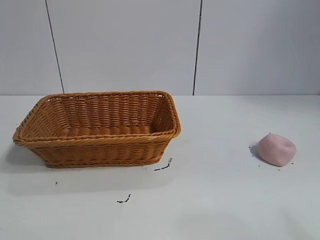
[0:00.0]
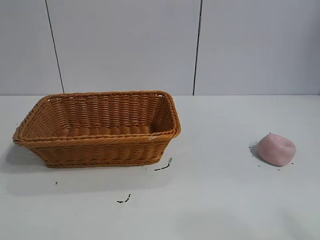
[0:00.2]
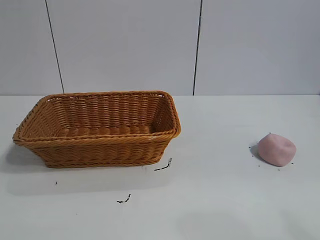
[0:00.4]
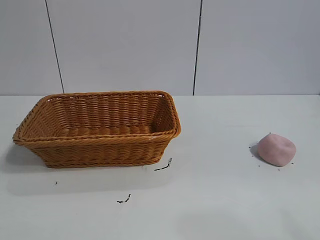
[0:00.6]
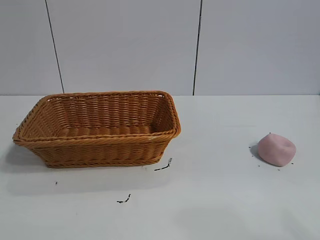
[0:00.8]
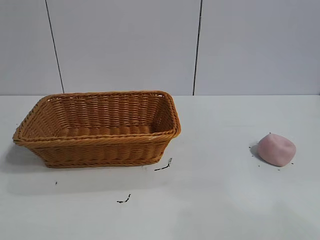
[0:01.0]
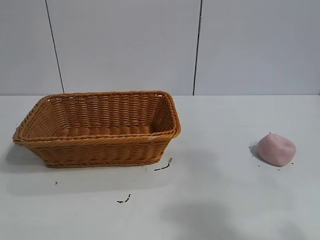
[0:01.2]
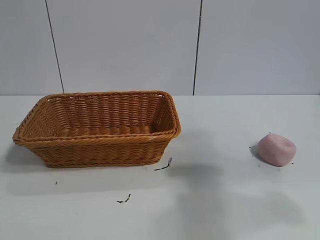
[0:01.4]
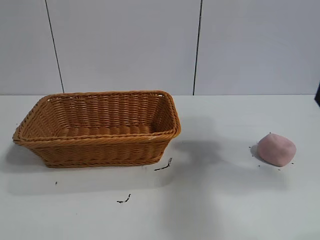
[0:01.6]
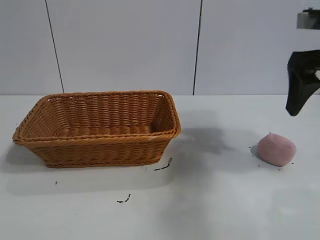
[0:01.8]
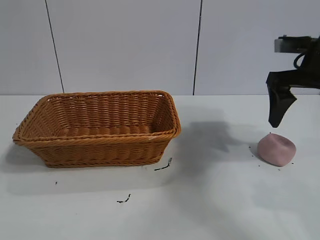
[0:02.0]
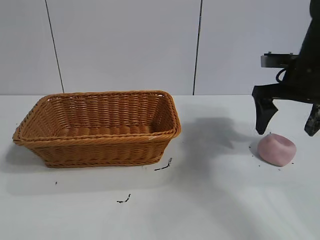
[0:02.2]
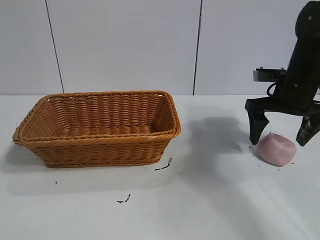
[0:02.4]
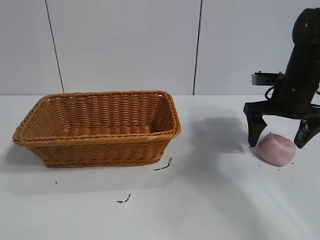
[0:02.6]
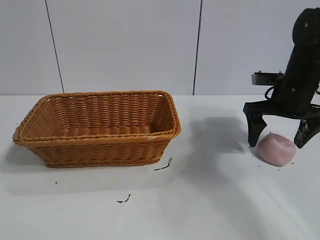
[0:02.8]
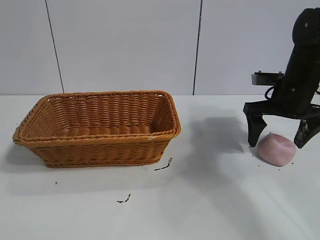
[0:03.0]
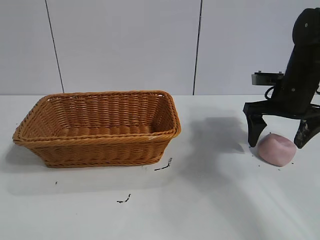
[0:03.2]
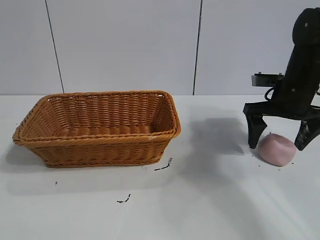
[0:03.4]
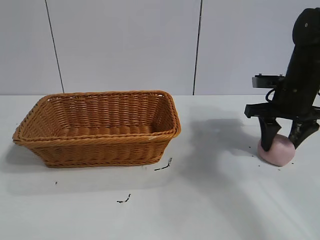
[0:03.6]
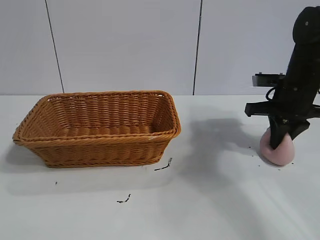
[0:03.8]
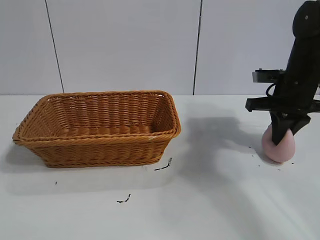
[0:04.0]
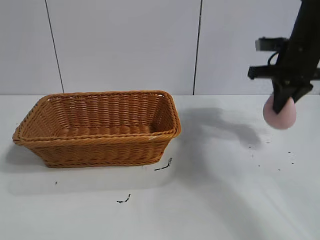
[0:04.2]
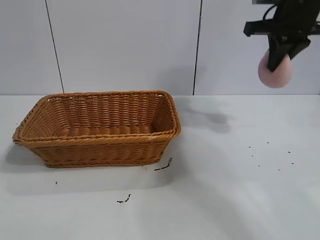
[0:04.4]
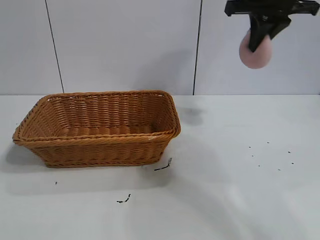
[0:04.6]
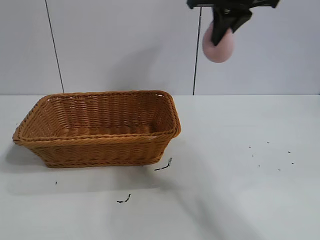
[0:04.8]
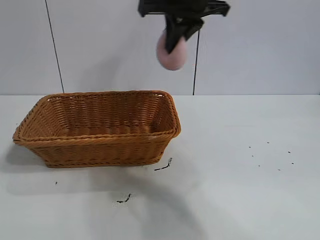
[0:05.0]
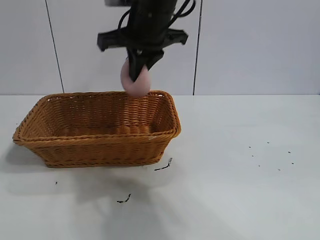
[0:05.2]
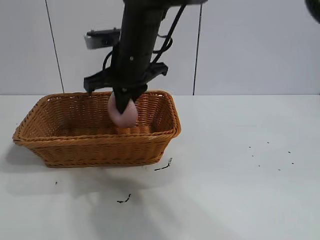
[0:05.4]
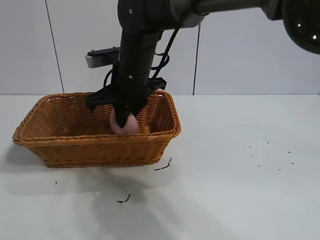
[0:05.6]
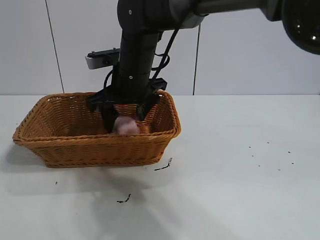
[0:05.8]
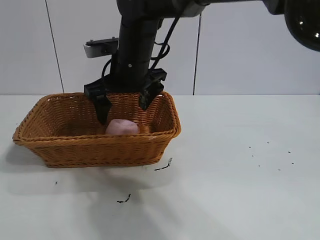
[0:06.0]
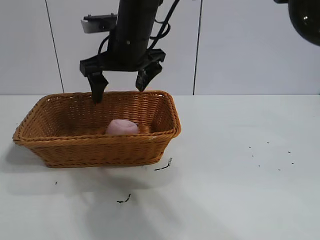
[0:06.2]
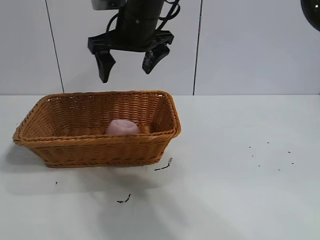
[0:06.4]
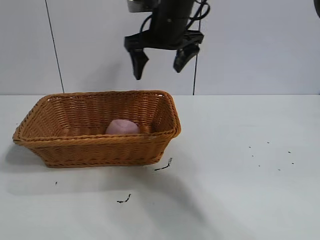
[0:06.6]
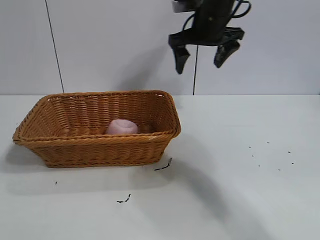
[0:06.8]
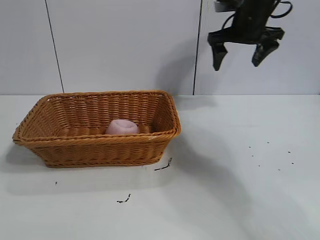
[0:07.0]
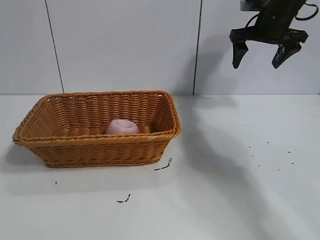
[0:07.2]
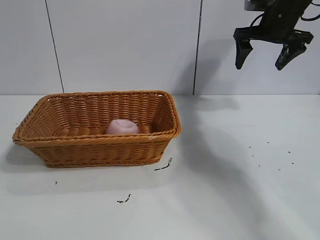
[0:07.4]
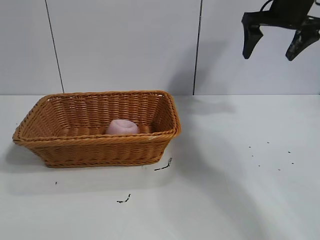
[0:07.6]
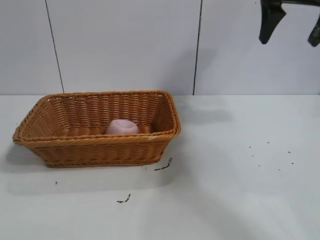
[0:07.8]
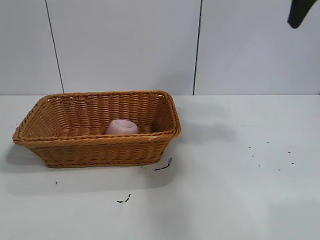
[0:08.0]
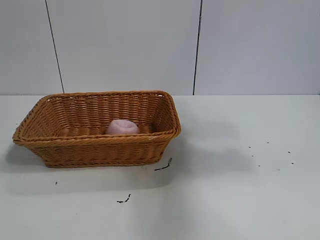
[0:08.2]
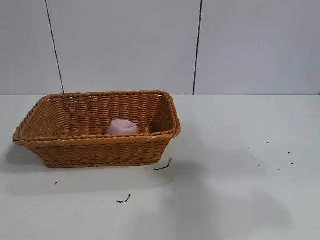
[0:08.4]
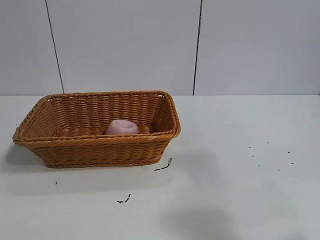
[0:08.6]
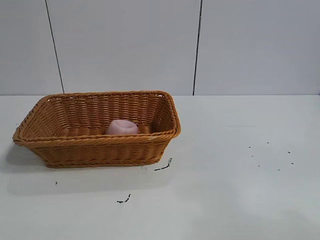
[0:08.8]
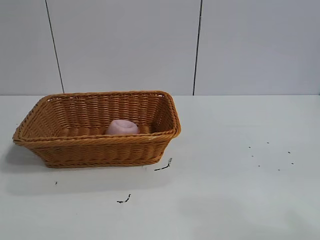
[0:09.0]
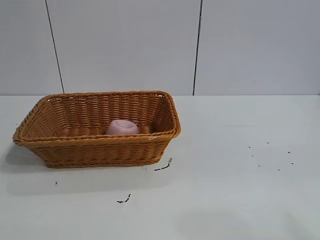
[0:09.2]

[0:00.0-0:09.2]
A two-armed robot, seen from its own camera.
Task of the whole recording: pick up the peach and put it into the basket.
Step, 0:00.8 to 0:03.8: Grasp the peach with right gripper.
Step, 0:04.0 to 0:05.8: Place the peach in the basket with right gripper.

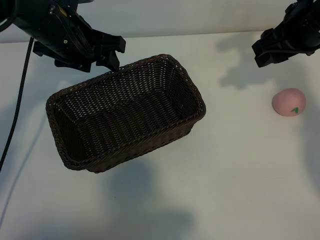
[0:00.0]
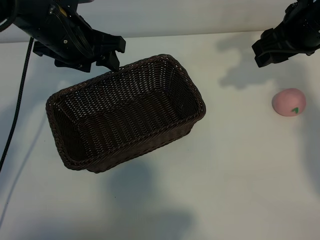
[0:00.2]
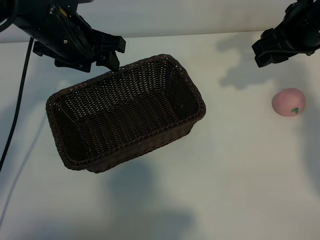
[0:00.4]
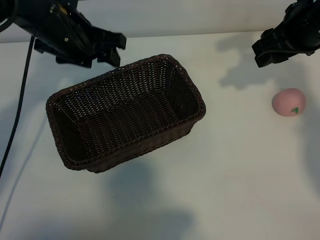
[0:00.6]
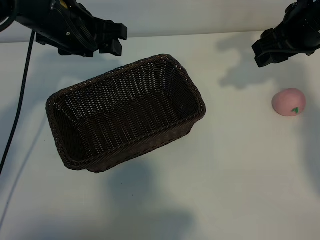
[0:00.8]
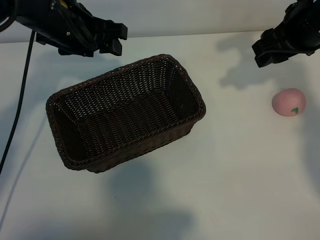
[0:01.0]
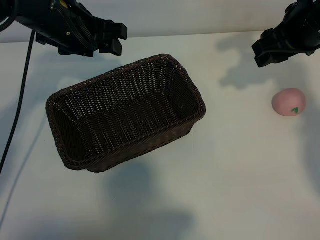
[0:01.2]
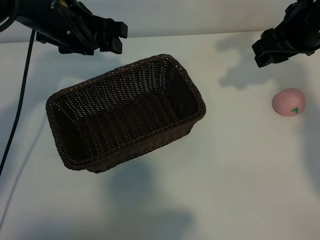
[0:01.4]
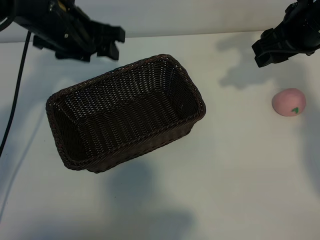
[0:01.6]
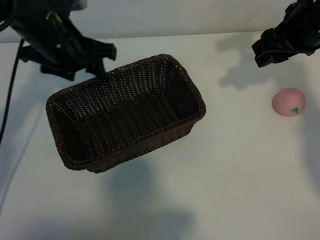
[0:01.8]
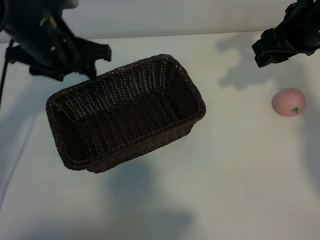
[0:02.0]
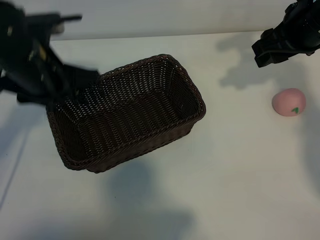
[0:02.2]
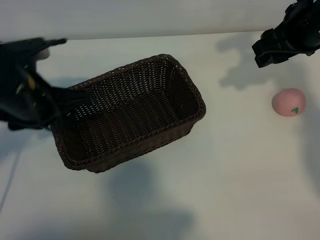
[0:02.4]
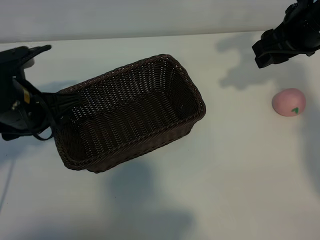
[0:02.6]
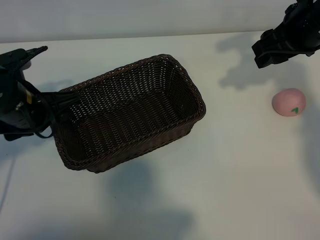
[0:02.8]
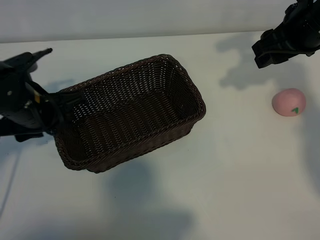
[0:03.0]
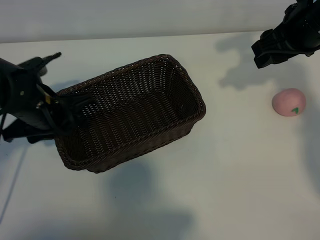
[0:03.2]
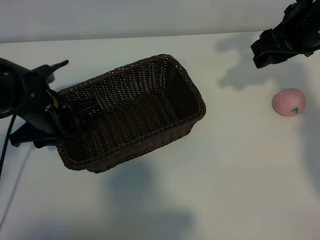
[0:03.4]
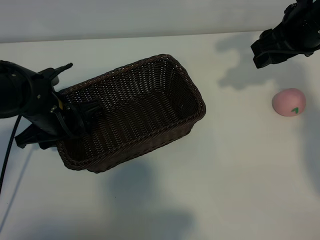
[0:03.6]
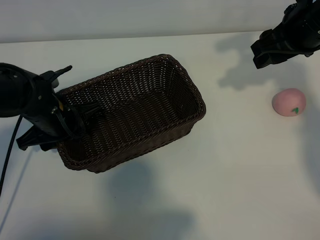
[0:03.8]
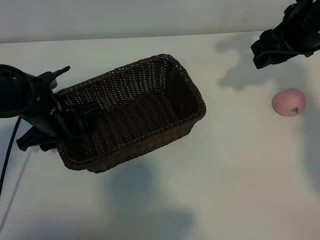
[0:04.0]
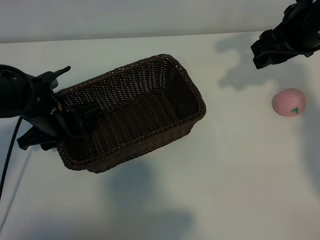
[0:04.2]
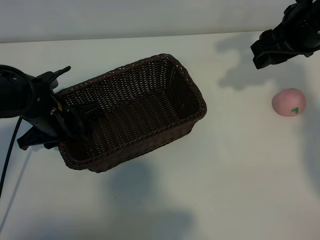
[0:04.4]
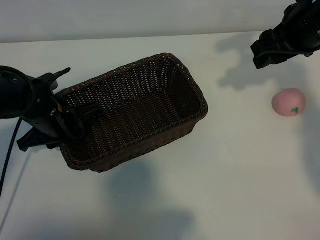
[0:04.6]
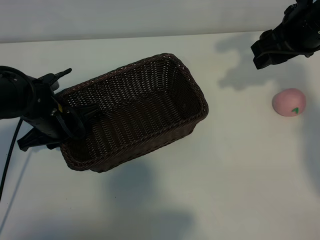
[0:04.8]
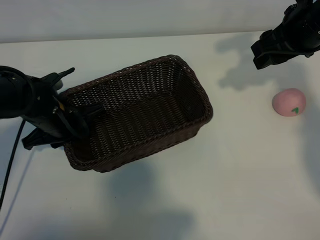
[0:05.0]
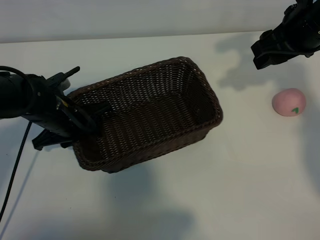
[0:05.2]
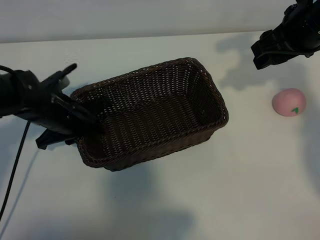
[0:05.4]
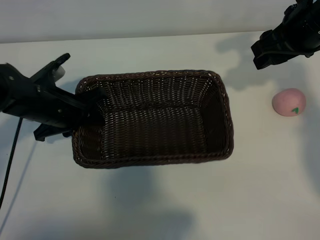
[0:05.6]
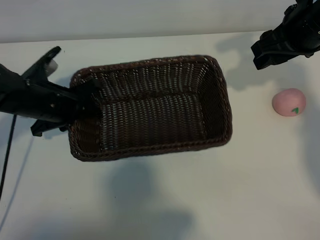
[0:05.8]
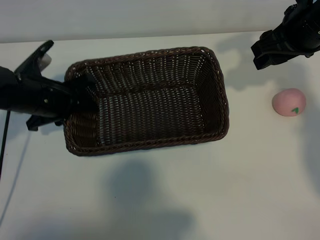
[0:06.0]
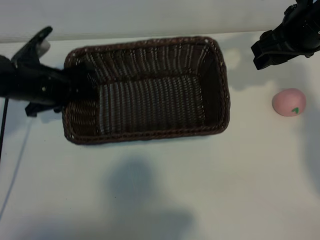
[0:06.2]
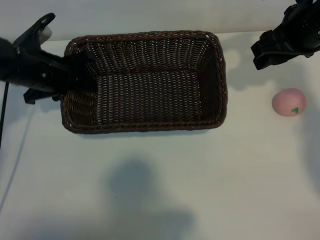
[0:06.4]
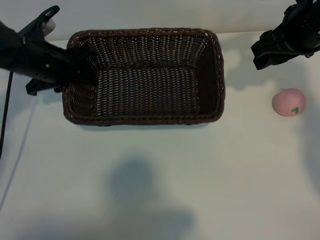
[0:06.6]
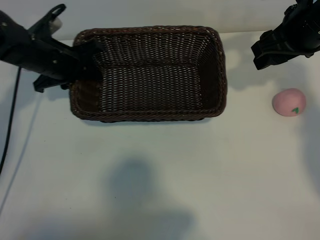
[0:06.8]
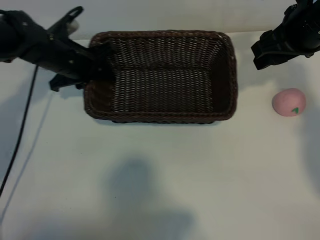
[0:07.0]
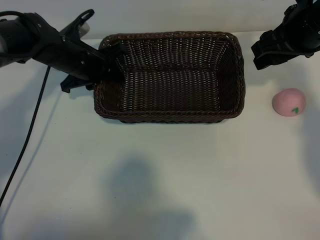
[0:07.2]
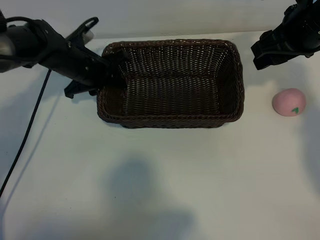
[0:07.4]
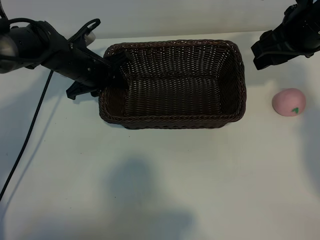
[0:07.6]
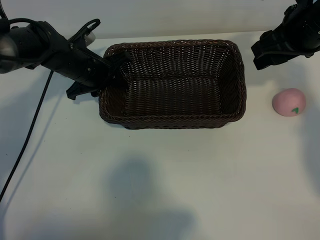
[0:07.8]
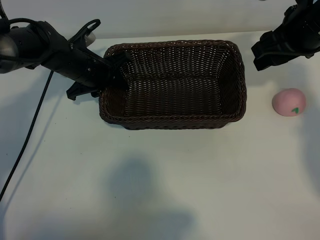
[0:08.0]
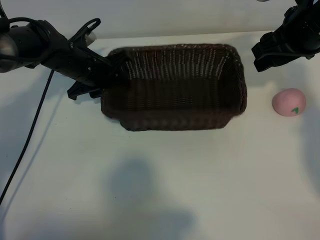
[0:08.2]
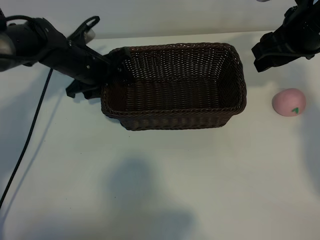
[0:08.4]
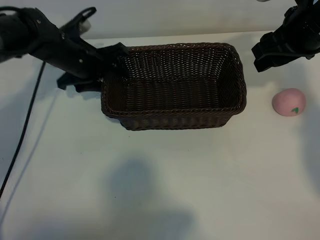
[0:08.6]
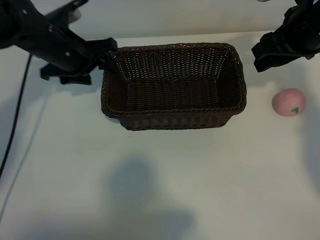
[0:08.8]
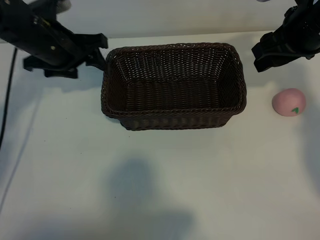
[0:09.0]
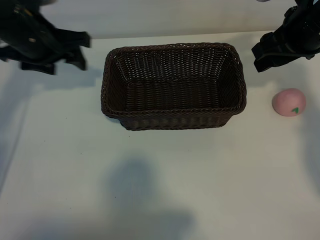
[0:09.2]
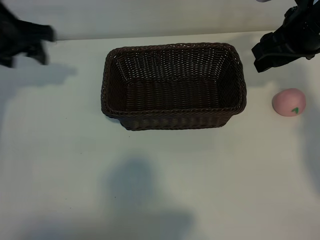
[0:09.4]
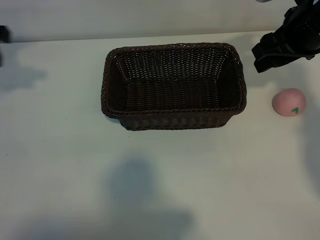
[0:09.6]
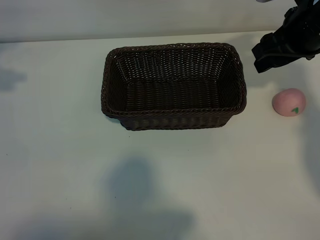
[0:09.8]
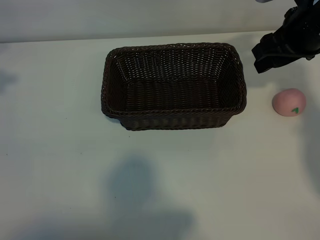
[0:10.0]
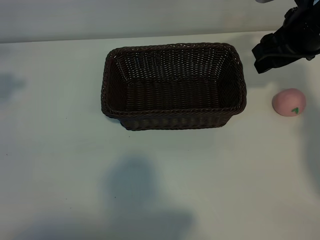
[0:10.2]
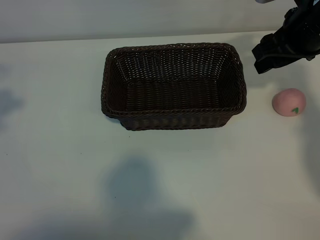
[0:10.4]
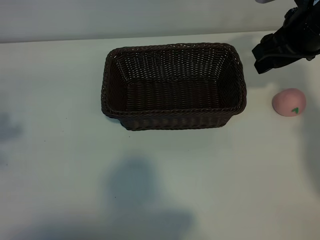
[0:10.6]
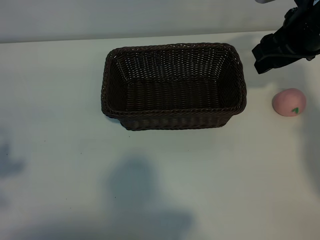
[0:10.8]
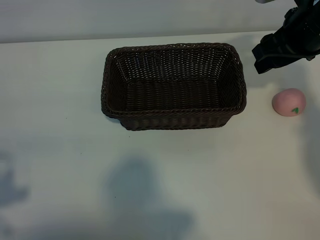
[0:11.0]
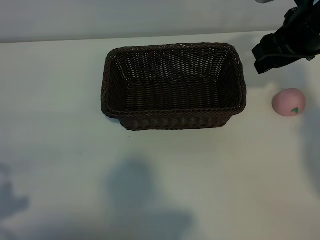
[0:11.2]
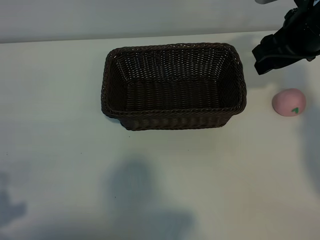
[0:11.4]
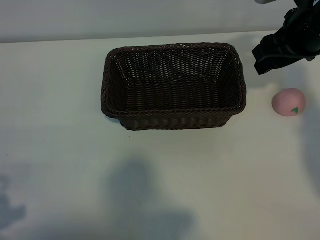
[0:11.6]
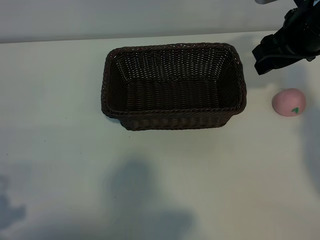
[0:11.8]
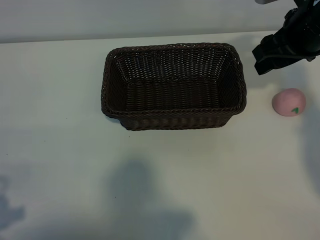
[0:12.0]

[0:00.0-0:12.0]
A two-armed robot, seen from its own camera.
Task of the whole recording: pick up the peach and put it into the basket.
Step, 0:00.6 to 0:04.8: Grasp the basket with left gripper.
Step, 0:05.0 to 0:08.6: Place the basket in the center of view with left gripper.

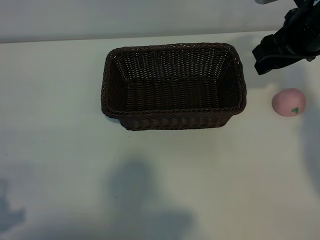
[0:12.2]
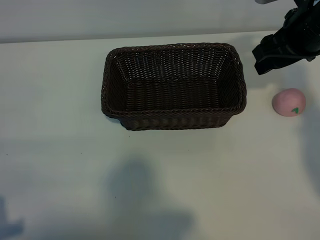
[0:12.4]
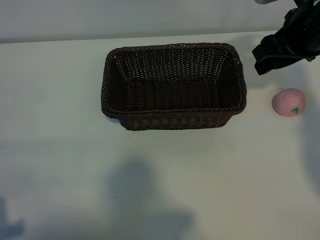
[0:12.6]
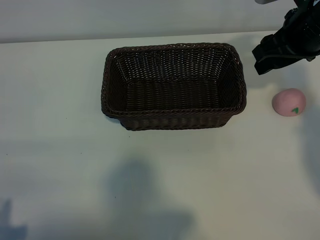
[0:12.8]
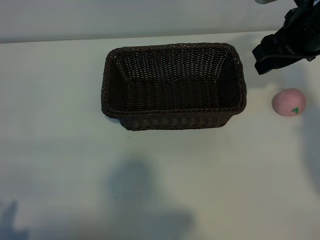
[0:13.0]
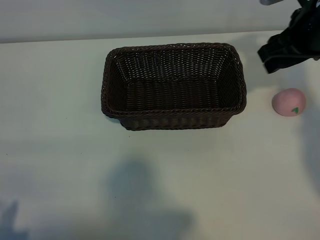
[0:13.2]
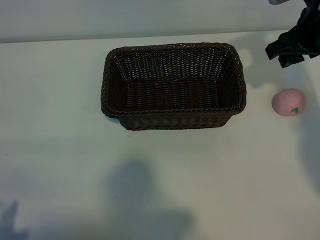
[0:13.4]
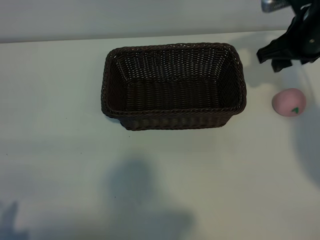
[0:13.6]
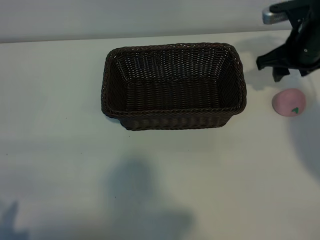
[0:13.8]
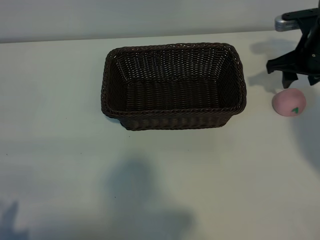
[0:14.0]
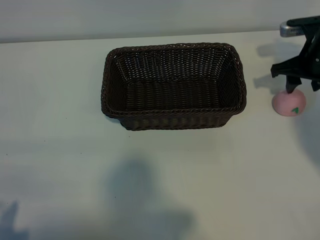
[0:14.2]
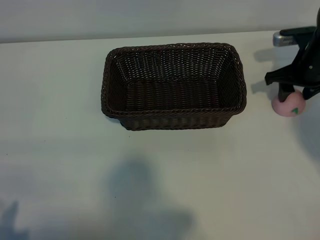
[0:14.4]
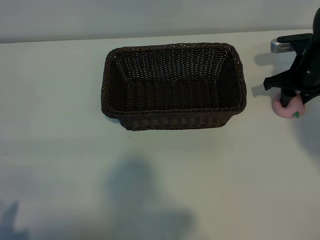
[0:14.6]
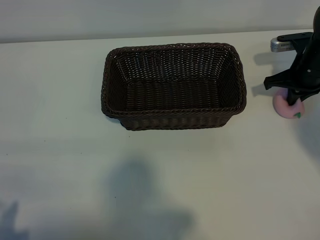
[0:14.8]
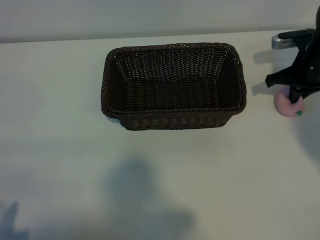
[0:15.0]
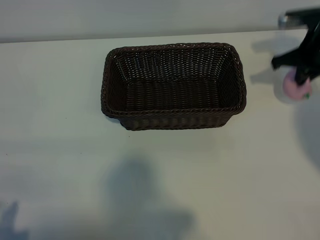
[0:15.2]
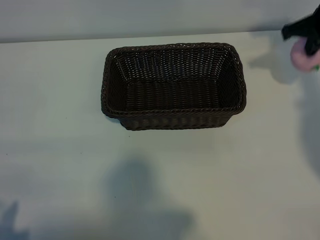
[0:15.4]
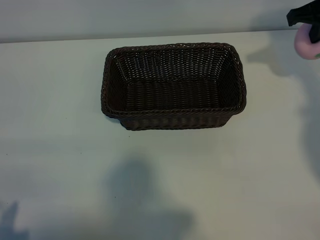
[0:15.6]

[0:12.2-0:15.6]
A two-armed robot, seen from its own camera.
Task of the whole recording: pick up the peach and put it into the basket.
Step, 0:12.2 to 0:14.8: Grasp the peach with right gripper.
